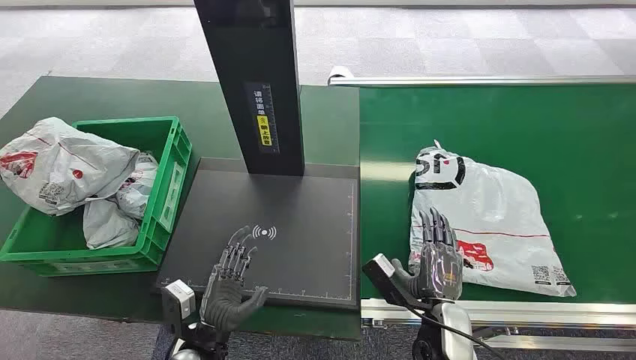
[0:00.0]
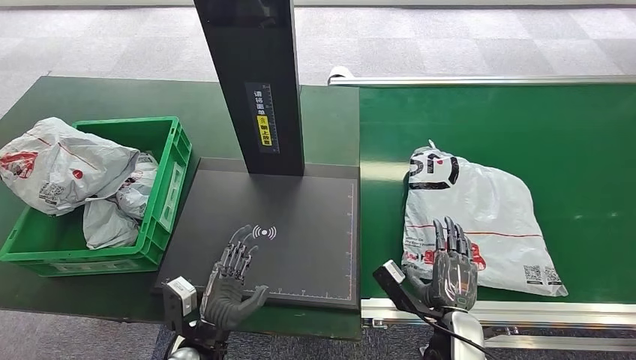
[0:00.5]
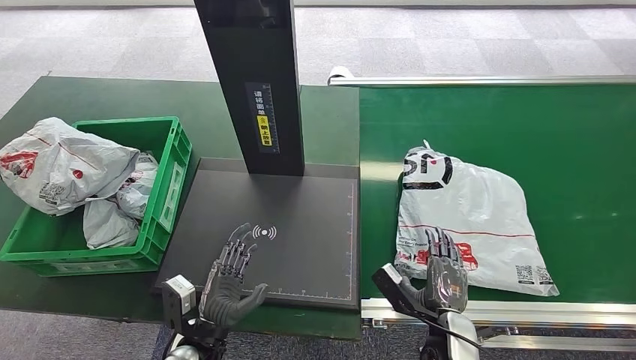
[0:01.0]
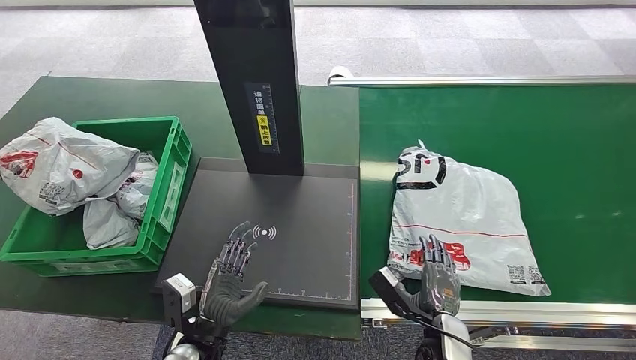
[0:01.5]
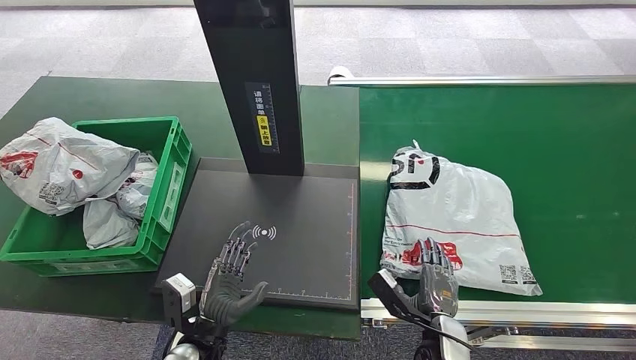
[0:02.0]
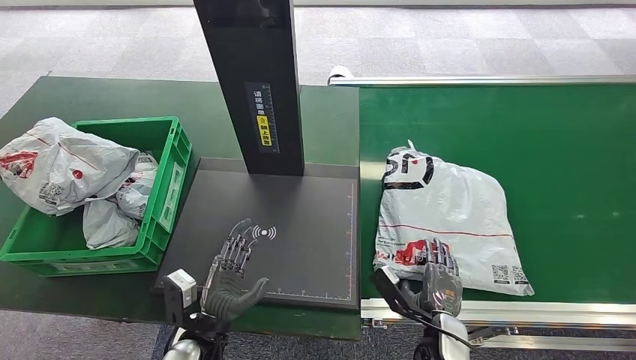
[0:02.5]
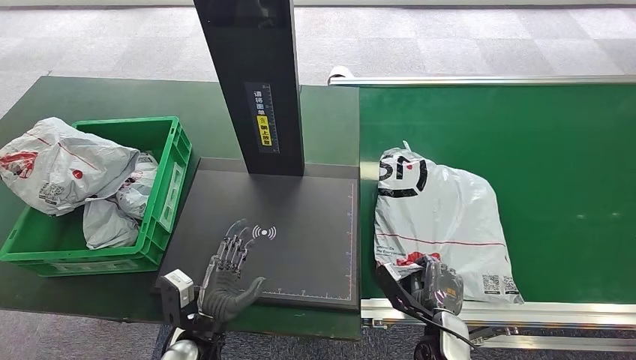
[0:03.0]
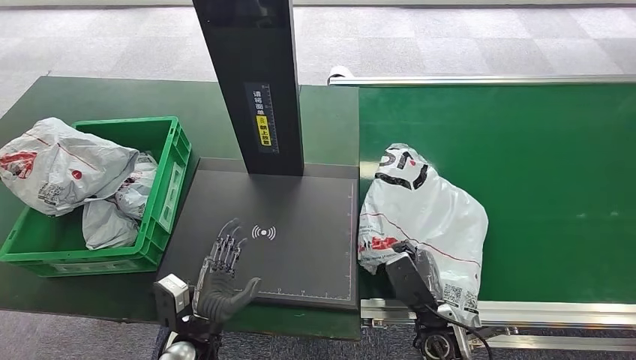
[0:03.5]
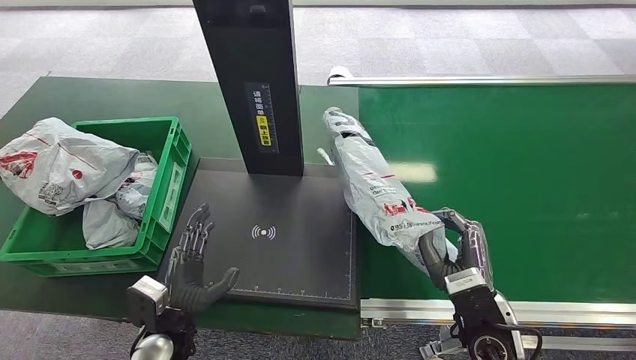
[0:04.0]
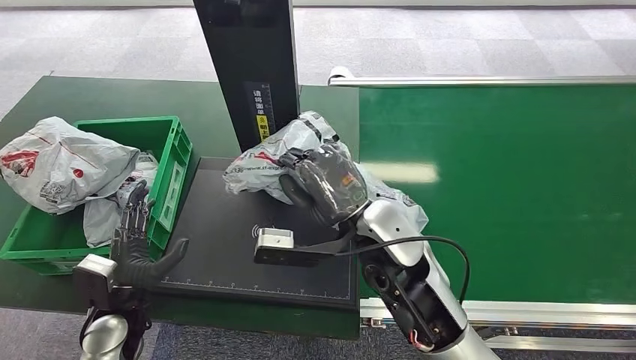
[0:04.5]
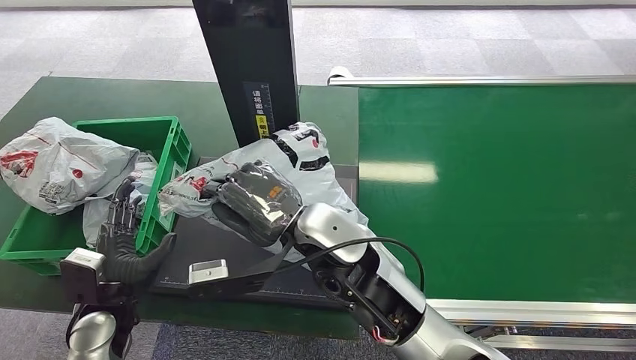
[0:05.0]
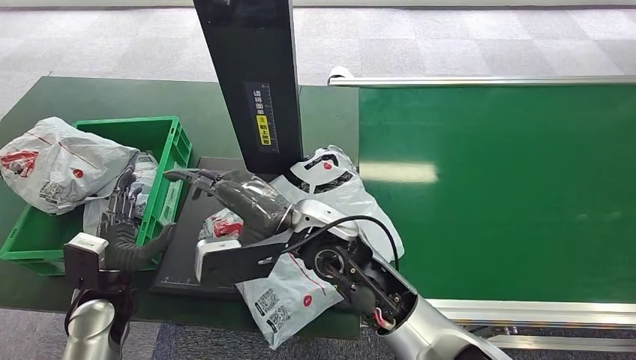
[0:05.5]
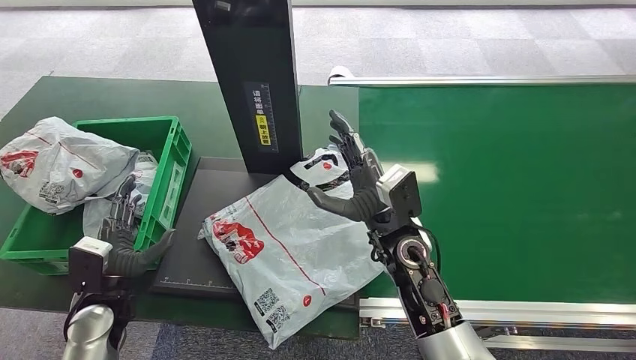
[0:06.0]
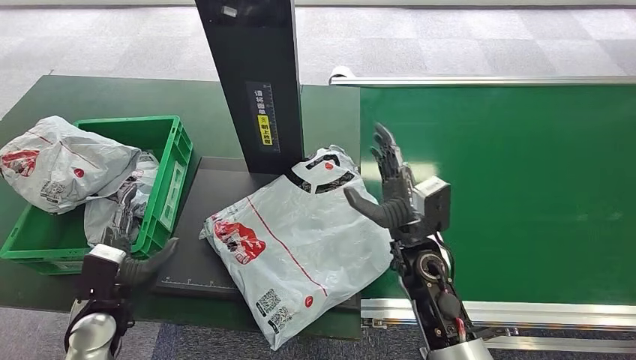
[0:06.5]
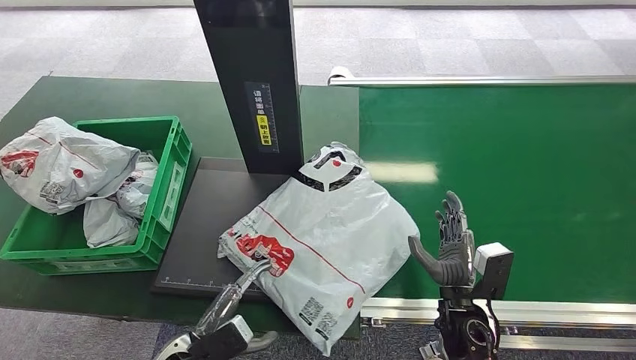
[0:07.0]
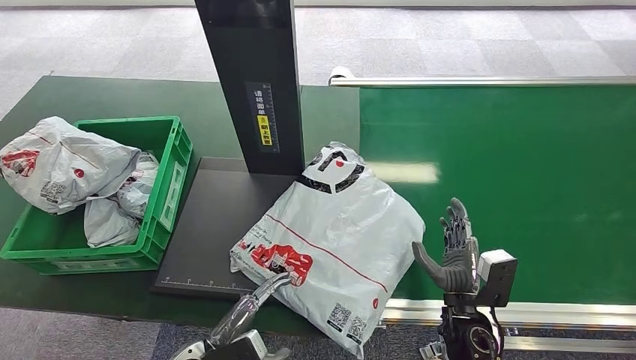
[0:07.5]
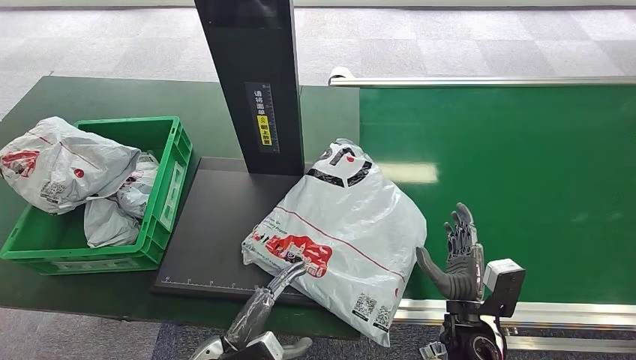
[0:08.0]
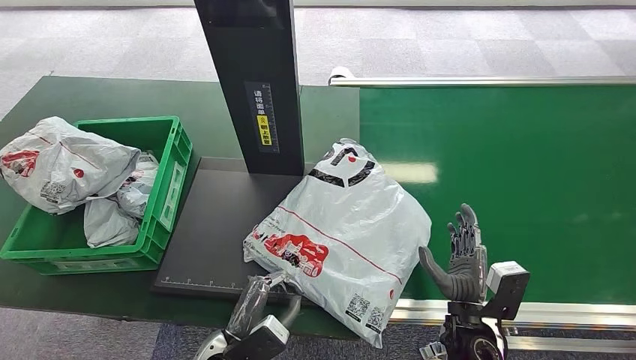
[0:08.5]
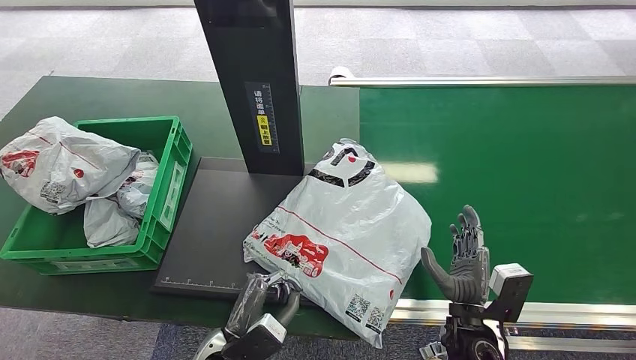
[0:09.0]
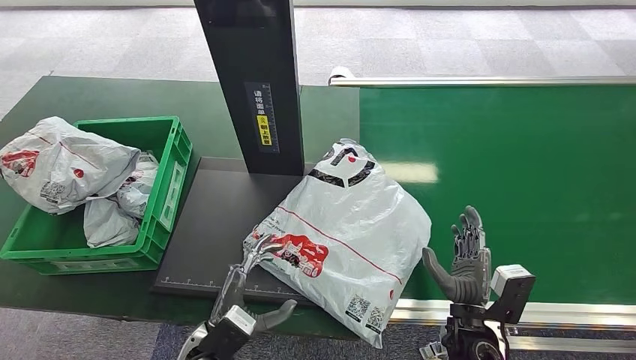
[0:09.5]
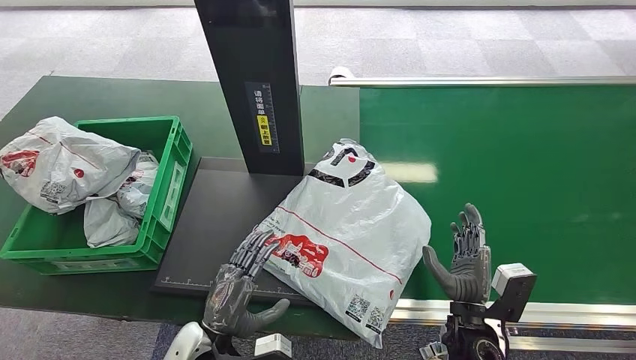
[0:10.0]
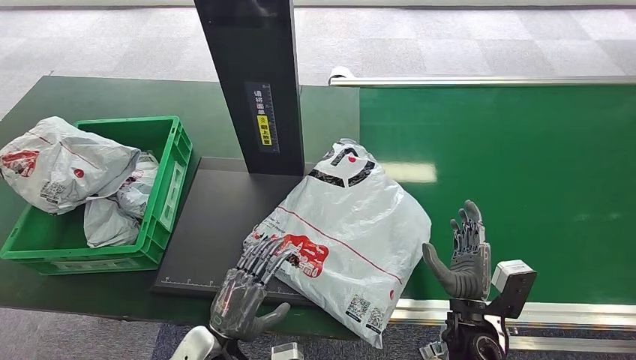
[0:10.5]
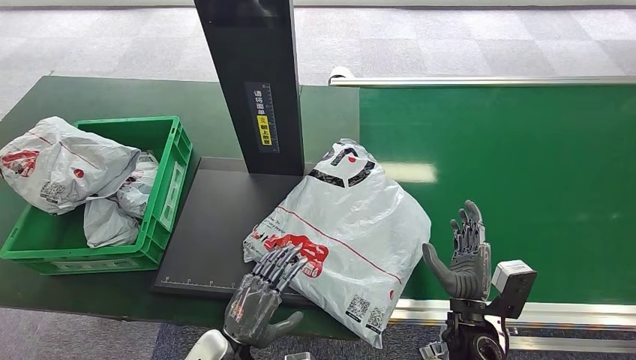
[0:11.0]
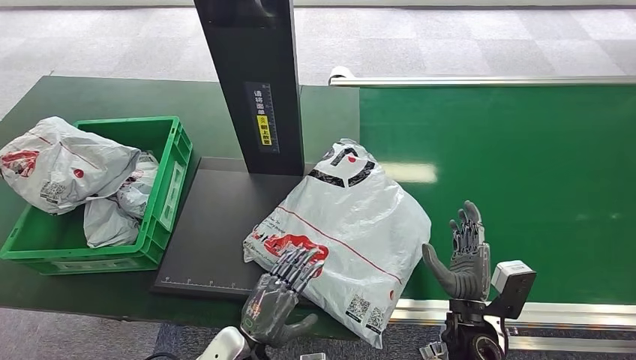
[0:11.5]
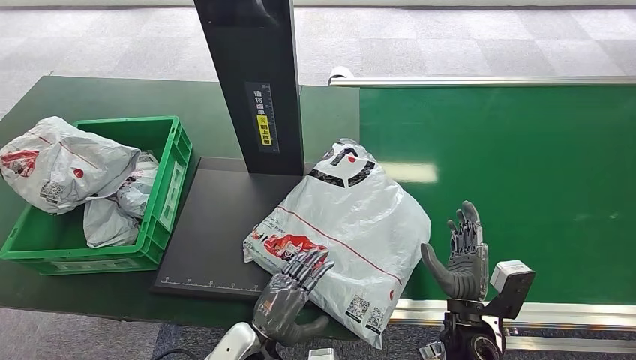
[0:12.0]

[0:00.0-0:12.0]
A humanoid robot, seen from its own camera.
Step, 0:00.0 to 0:04.5: Pick up the package from the conveyor belt.
Step, 0:05.0 to 0:06.5: Place the package onto the inbound machine.
0:02.0 to 0:04.0: The left hand travels to the left by some 5 cm. Meanwhile the right hand is displaced upward by some 15 cm.
0:10.0 to 0:12.0: The left hand shifts roughly 5 cm to the right.

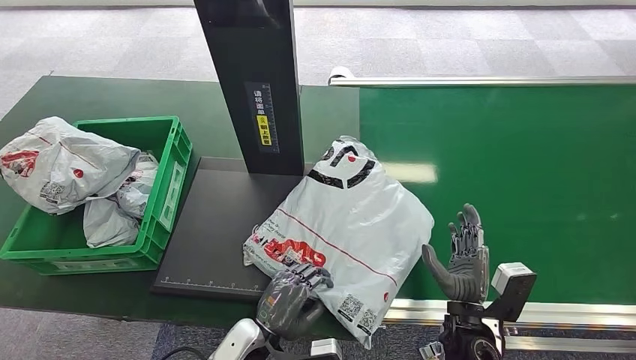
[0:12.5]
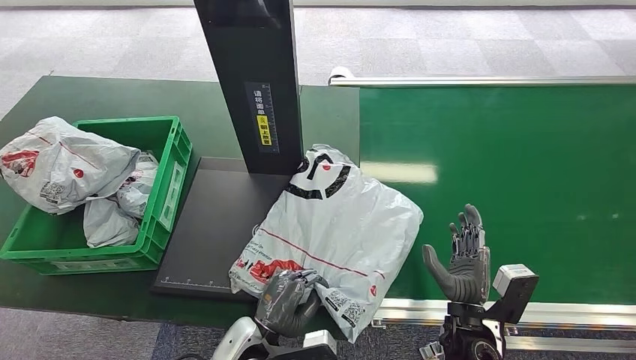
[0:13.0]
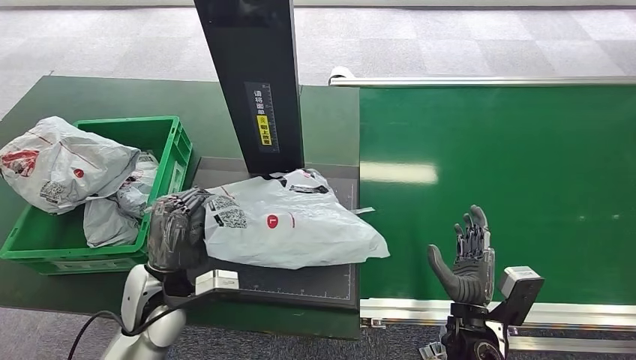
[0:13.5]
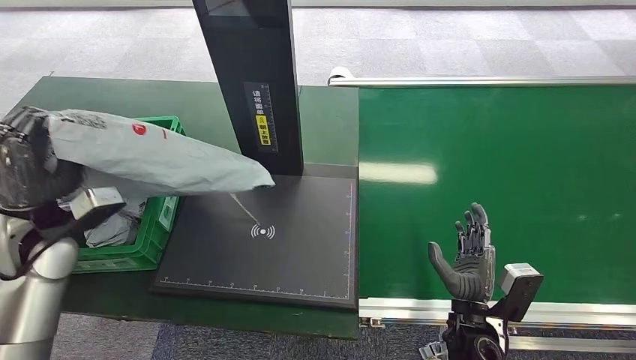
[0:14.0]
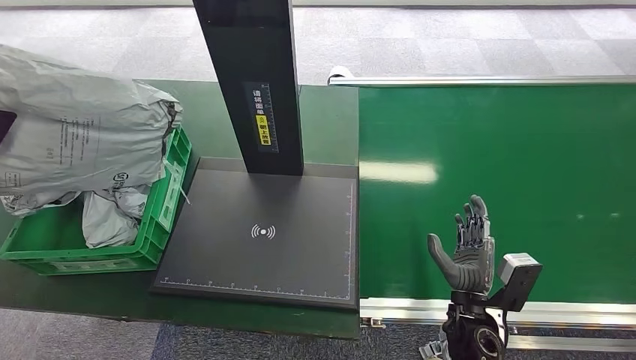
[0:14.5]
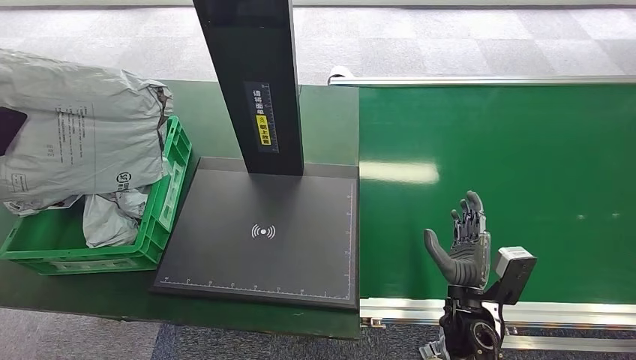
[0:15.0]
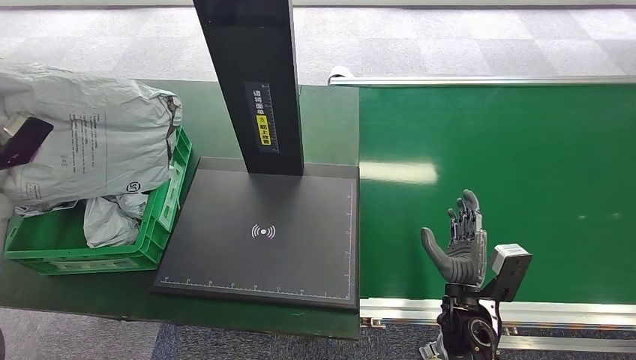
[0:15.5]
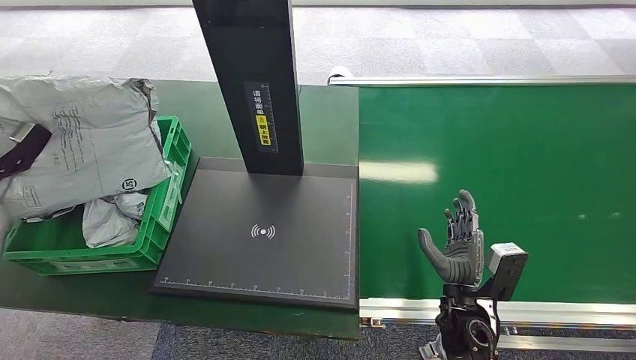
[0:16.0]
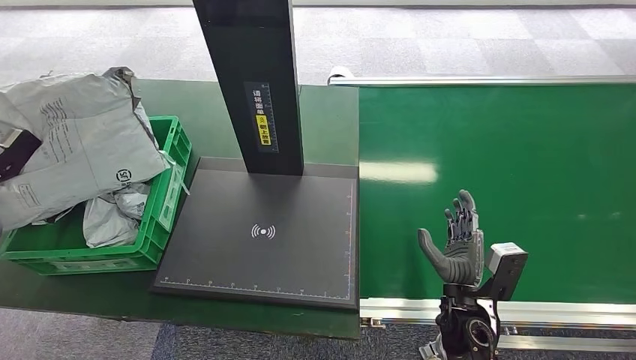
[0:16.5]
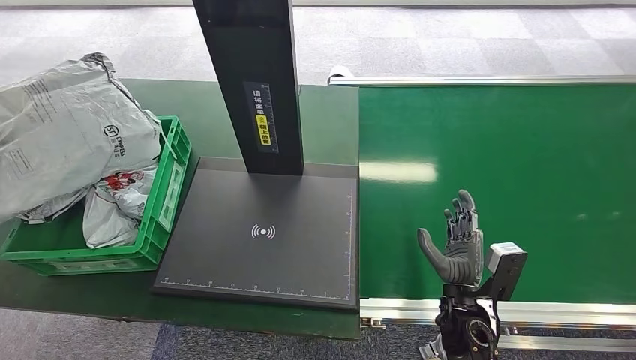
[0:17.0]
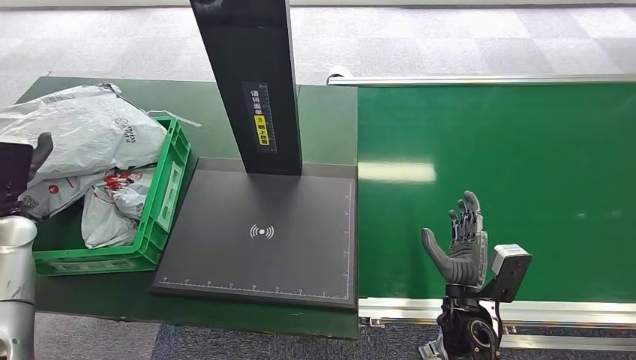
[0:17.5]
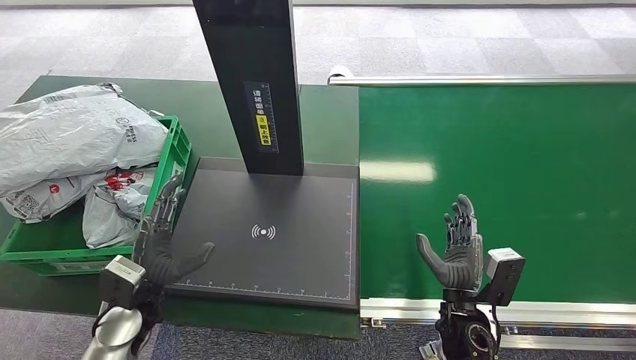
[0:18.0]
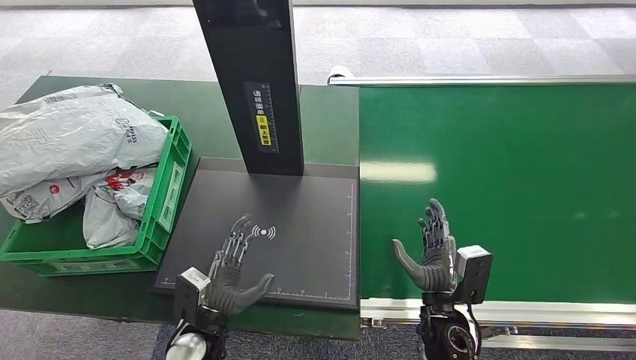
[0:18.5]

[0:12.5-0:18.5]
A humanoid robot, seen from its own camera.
Step, 0:14.5 to 0:18.5: Place the package into the parcel locker.
0:14.5 to 0:16.5: The left hand travels downward by roughly 5 cm.
0:16.5 to 0:18.5: The left hand is displaced to the right and downward by some 40 cm.
